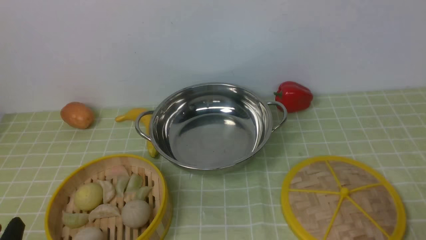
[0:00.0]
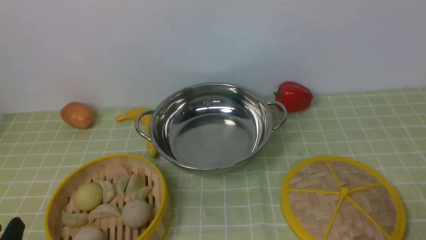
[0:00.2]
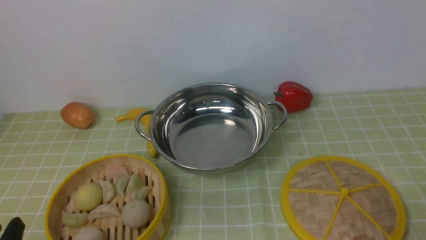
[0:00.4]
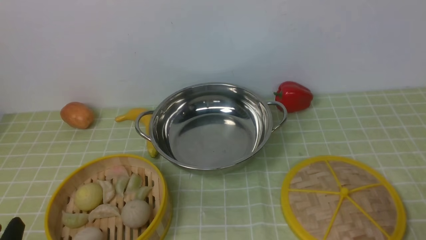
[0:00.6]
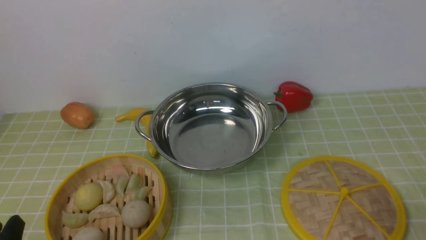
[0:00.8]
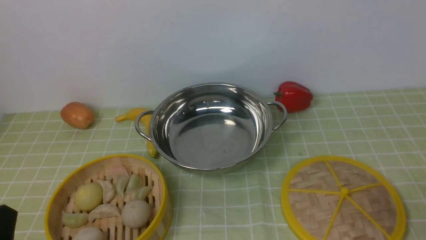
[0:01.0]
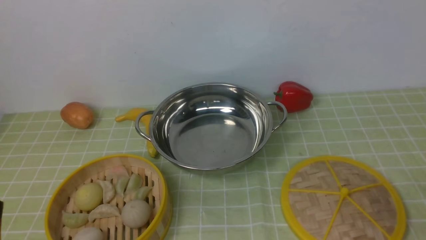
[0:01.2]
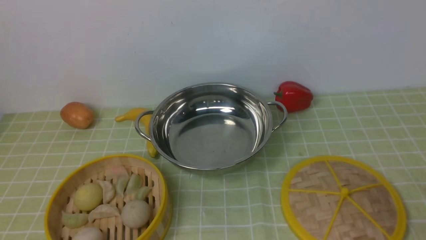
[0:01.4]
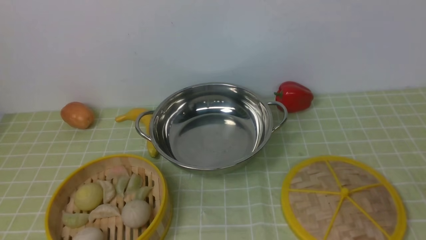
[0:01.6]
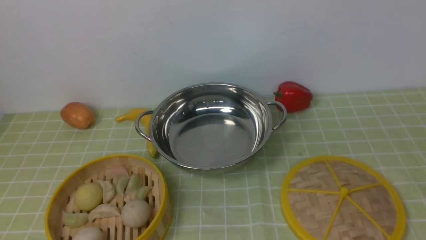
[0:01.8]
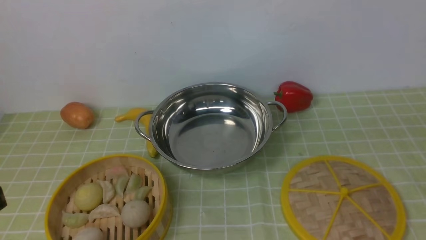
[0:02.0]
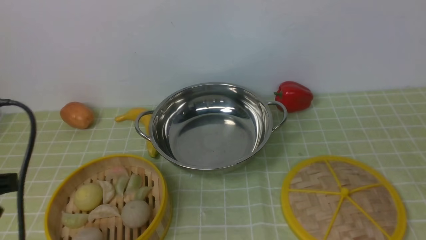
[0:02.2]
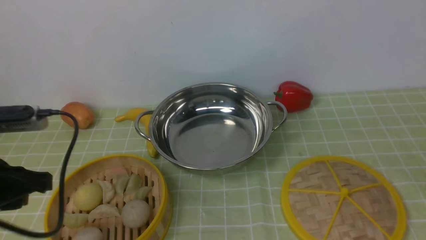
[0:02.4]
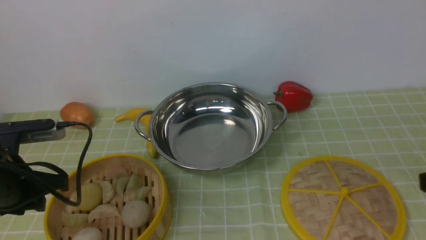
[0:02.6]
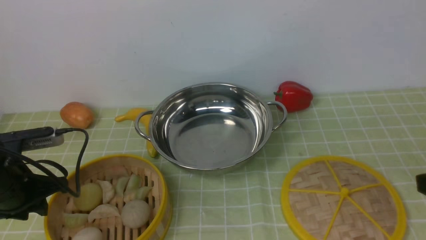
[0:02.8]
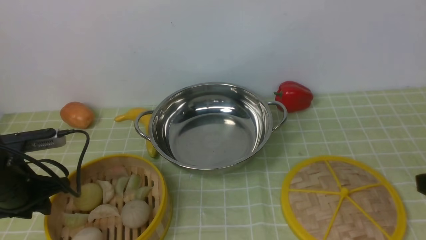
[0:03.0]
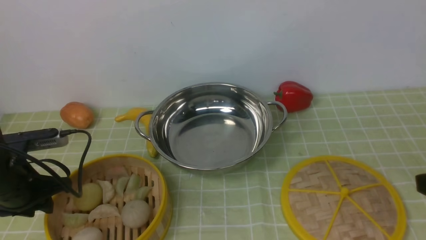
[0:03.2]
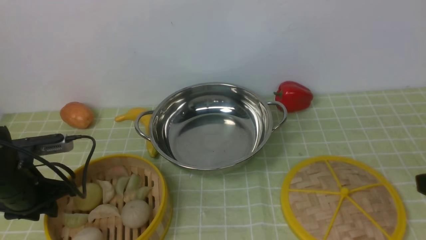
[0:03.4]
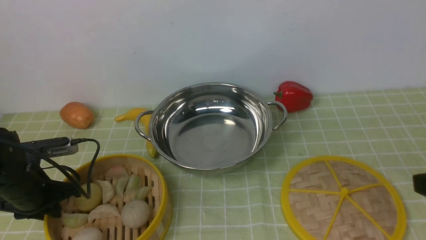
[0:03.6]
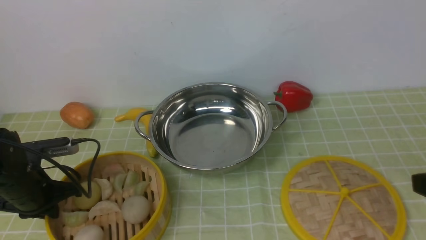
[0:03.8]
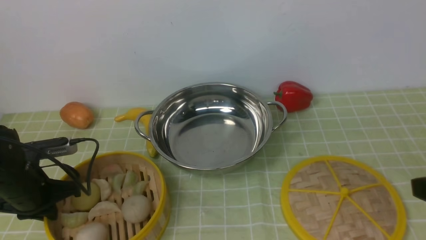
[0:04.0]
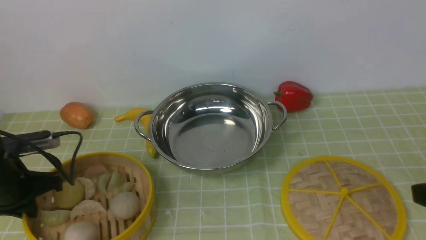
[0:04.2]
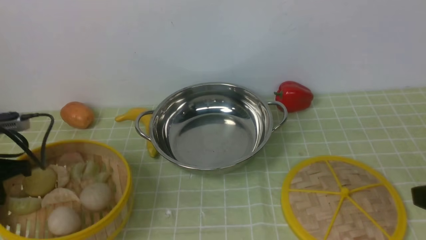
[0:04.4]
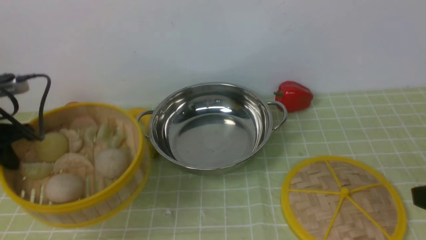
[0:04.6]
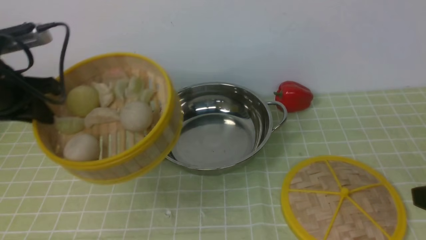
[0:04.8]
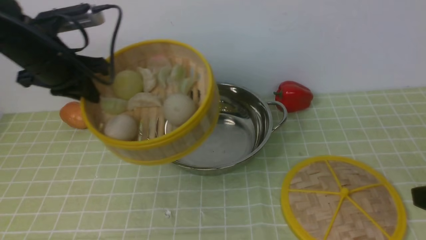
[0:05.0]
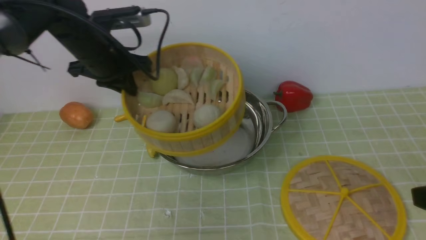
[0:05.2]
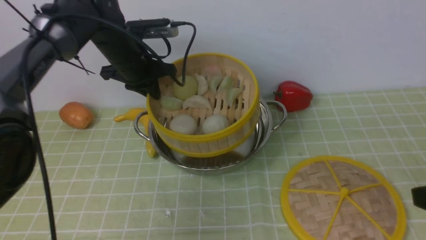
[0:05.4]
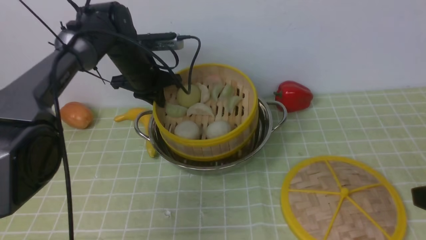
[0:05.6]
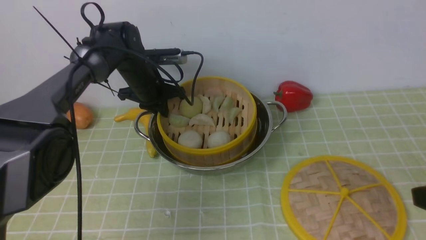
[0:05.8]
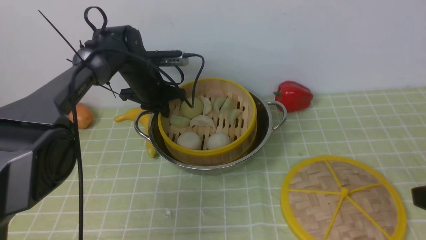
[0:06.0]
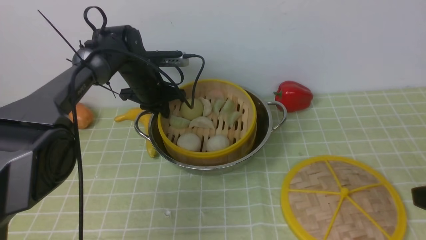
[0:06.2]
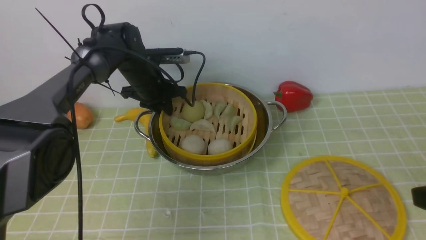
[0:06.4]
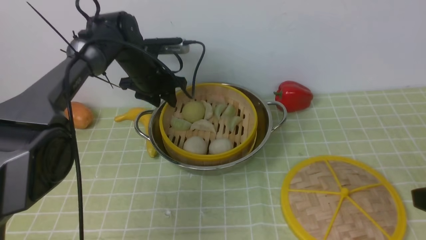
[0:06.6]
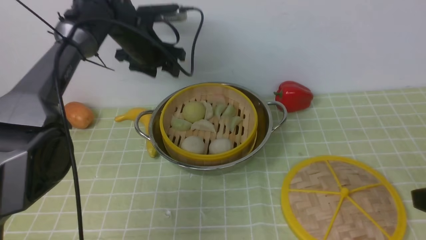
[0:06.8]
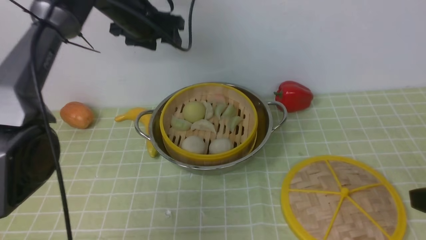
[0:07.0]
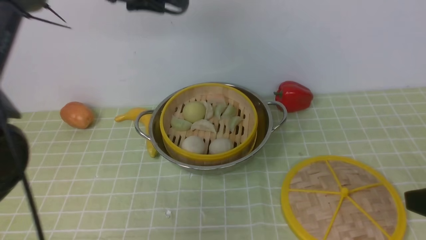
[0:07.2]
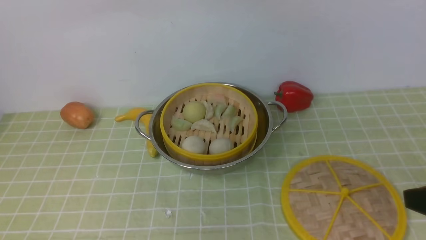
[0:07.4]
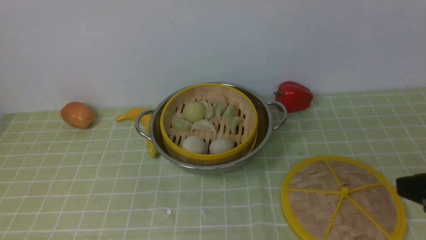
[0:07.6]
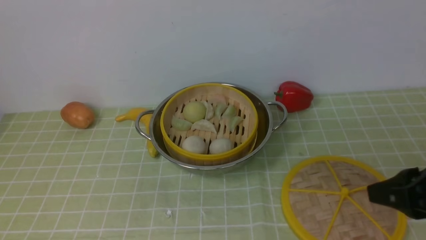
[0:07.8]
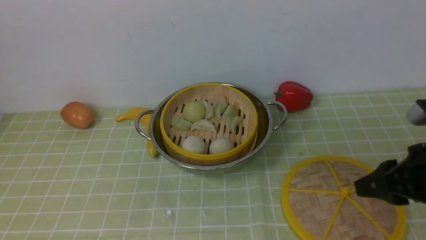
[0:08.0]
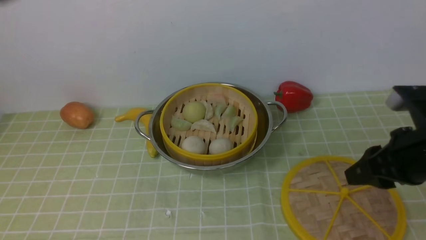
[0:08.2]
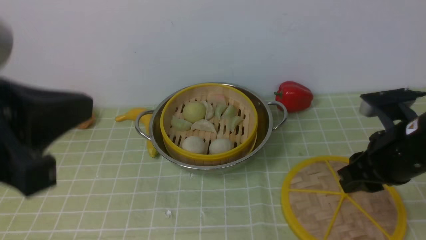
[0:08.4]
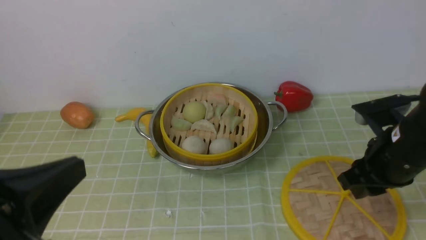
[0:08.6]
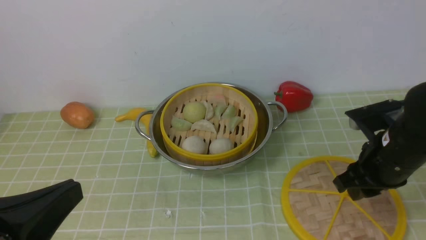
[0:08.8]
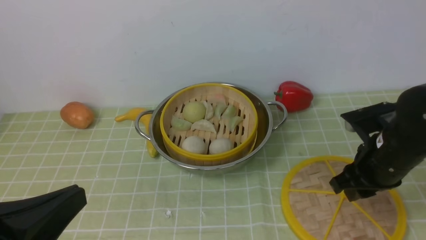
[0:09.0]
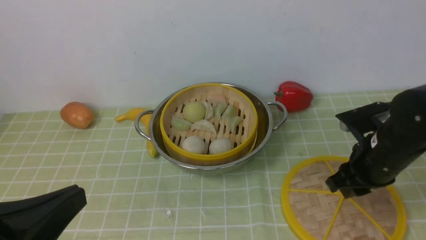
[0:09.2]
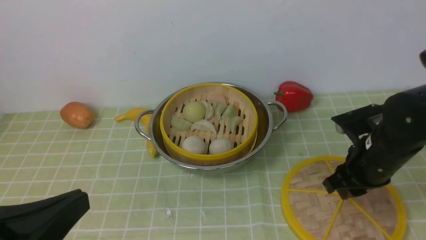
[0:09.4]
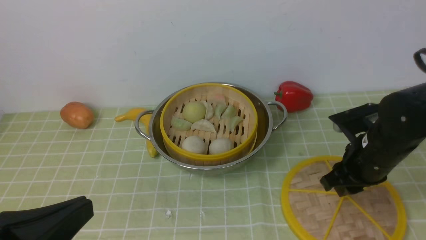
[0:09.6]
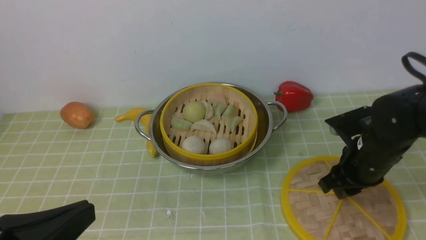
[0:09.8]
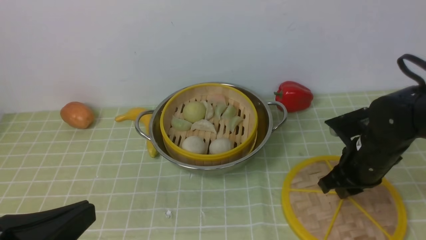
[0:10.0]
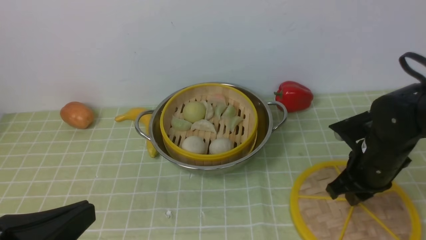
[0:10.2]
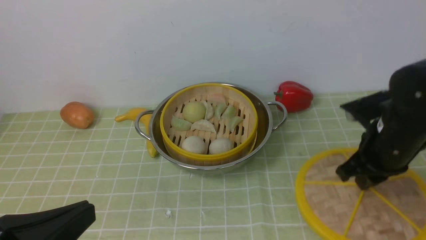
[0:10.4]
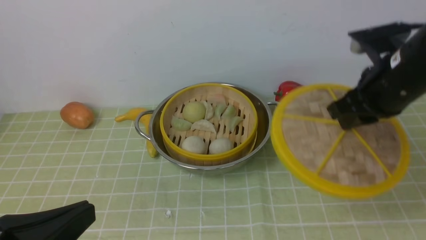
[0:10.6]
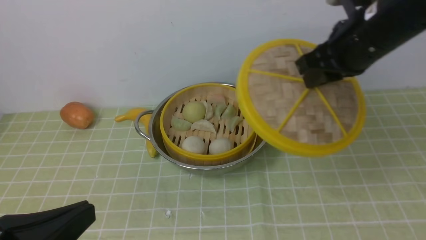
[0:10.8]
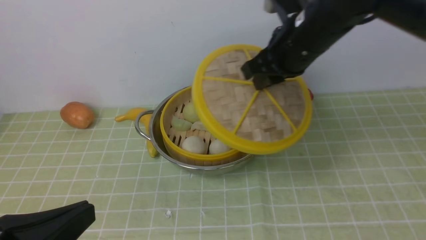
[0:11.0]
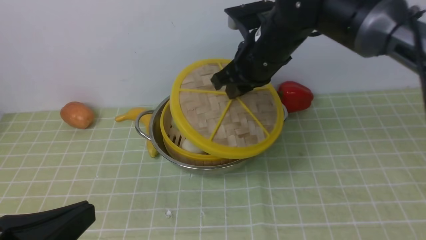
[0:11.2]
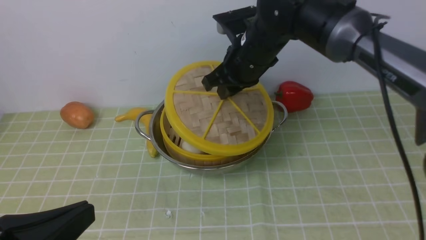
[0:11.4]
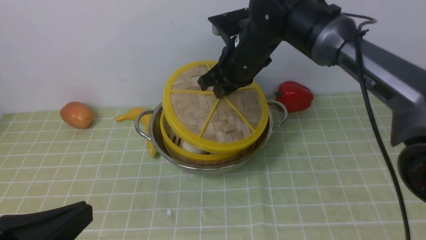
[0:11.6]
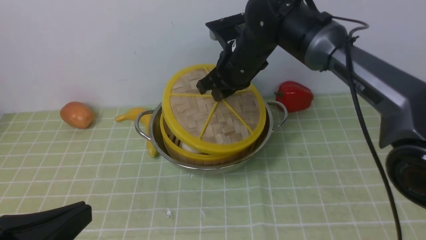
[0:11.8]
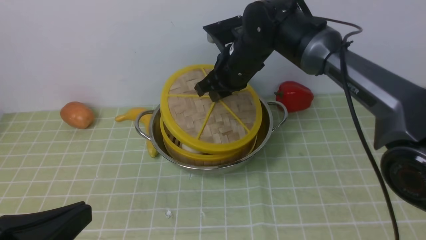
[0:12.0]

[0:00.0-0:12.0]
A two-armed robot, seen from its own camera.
Task of the whole recording: place the steamer in the pot on the green tablecloth, and put the lid on the steamer.
Step, 0:00.0 to 0:04.4: use the left arm to lift the steamer closest to it.
Step, 0:04.6 to 0:06.8: use the left arm to put the steamer into the iron steamer pot in the middle.
Step, 0:07.0 to 0:10.8: use the right arm to lift the lid of the steamer.
0:01.6 to 0:03.0: The left gripper heads forward and downward, covering roughly 25 cm.
0:03.0 to 0:04.4: The left gripper changes place by about 5 cm, and closes its fingers.
0:04.4 to 0:06.0: The left gripper heads forward and to the right, covering approximately 30 cm.
0:06.0 to 0:07.6: The left gripper is displaced upward and backward by about 40 cm, and opens, then closes once more.
0:07.6 to 0:09.0: The left gripper travels downward and backward by some 35 cm. Meanwhile the right gripper heads forward and downward, covering approximately 15 cm.
0:09.0 to 0:10.4: The grippers move only a little.
0:10.4 to 0:12.0: The right gripper moves to the left and forward, about 25 cm.

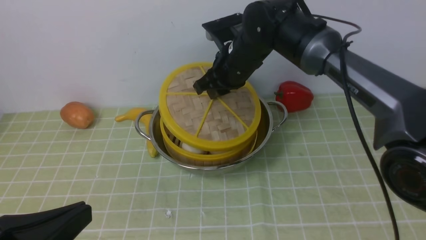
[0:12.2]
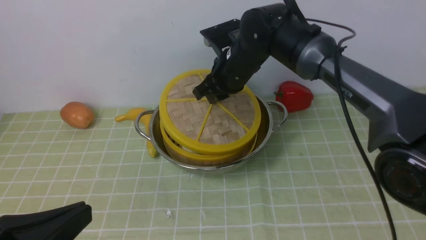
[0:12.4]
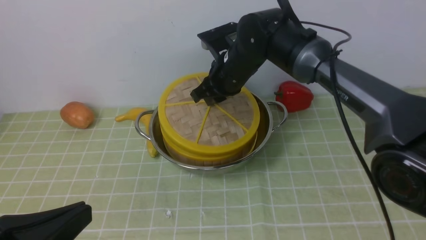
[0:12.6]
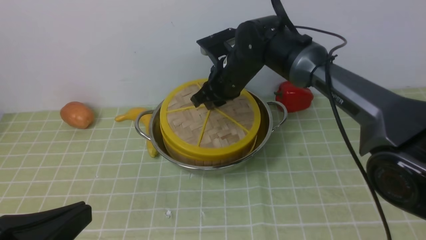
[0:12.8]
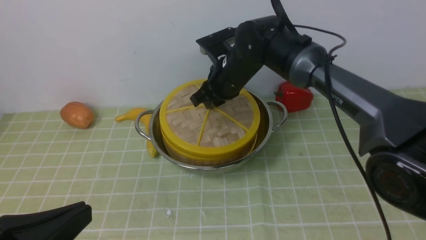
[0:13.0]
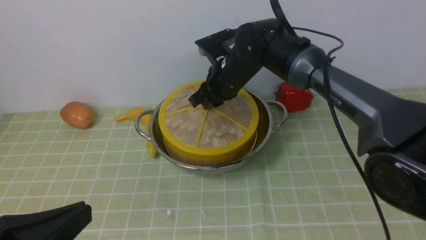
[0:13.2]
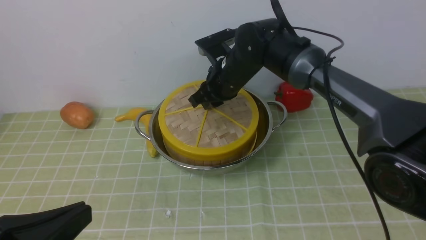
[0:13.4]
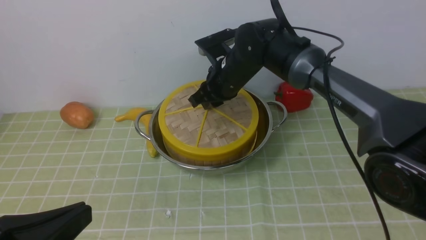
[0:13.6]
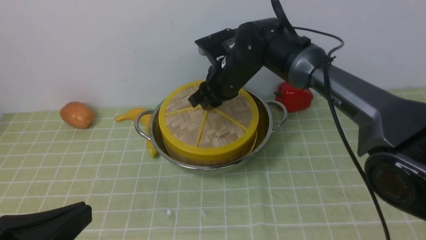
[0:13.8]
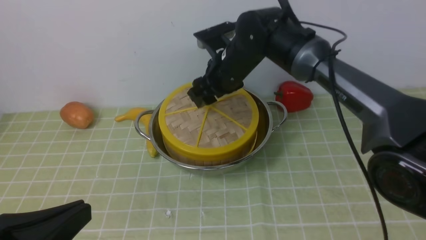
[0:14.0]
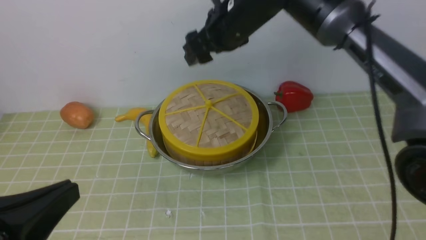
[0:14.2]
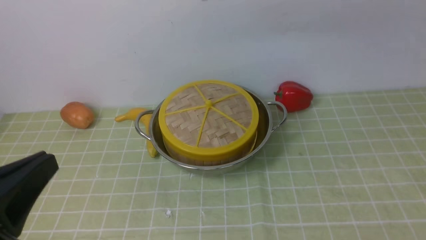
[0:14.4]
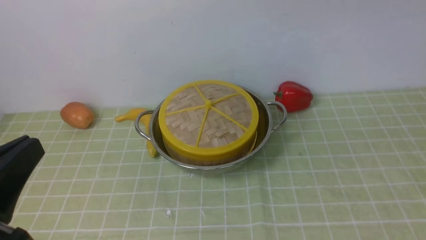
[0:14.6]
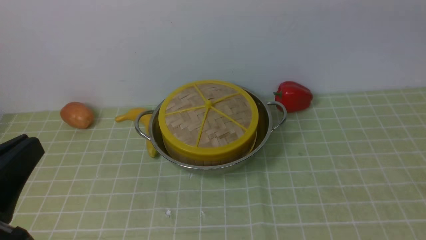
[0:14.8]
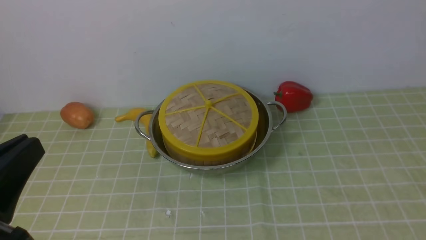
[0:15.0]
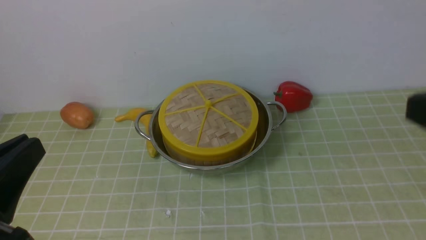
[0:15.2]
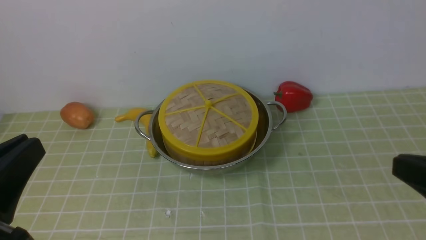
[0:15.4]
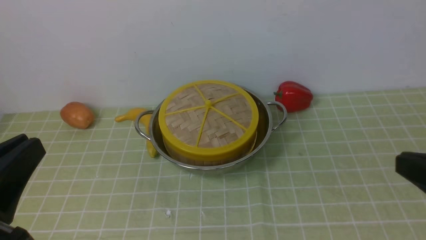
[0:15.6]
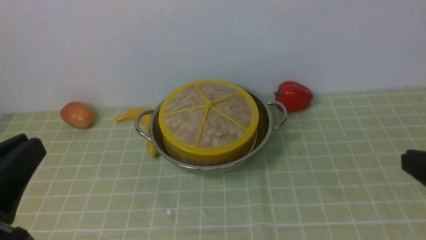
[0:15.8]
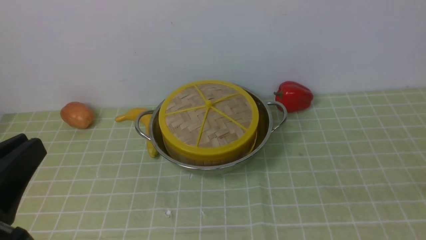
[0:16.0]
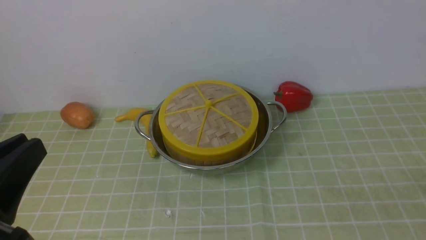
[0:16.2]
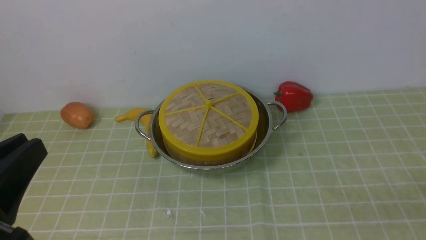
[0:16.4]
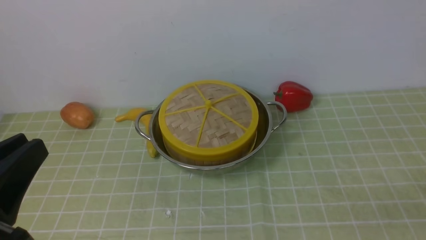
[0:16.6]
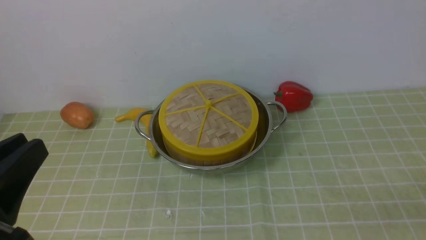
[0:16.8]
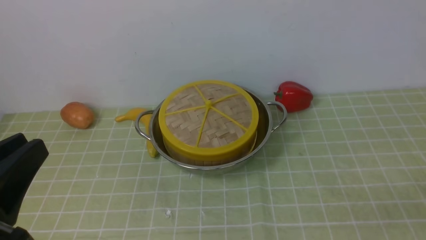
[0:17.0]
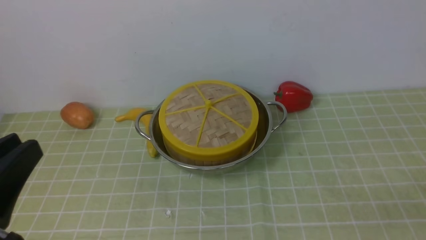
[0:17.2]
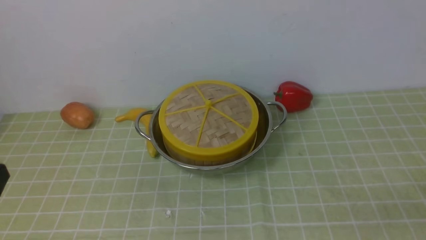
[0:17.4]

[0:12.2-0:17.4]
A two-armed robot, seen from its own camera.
Task of the whole recording: place the steamer in the pot on the green tablecloth, and put the lid on the steamer.
Step, 0:12.2 to 0:14.6: use the right arm to place the steamer lid on the steamer.
0:12.2 to 0:14.0: The right gripper opens.
0:14.0 to 0:15.6: The right gripper travels backward and to the right by approximately 40 cm, and closes.
0:15.6 to 0:17.4: The right gripper is displaced downward and to the right by about 10 cm, and opens its fingers, while the left gripper ends up some 5 cm from where it was.
